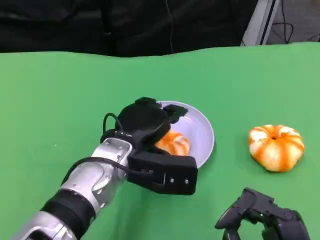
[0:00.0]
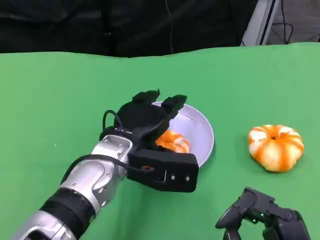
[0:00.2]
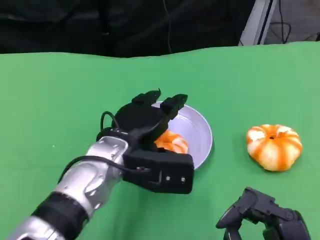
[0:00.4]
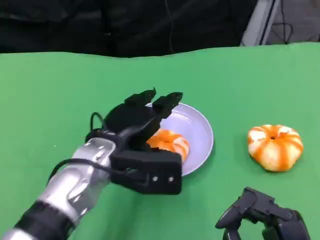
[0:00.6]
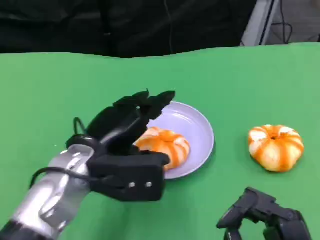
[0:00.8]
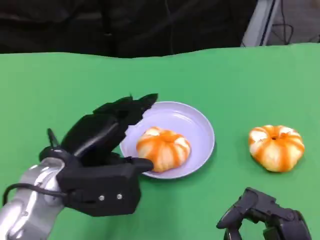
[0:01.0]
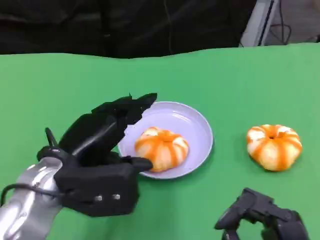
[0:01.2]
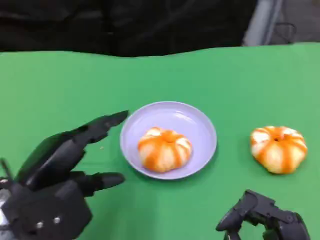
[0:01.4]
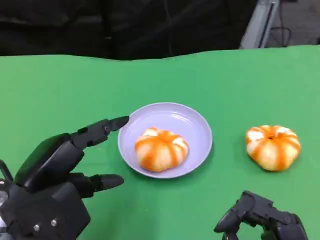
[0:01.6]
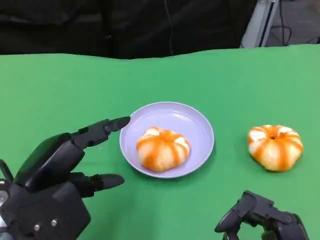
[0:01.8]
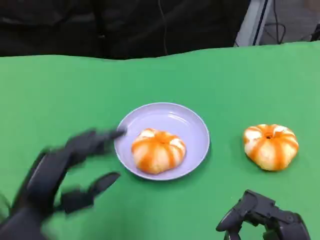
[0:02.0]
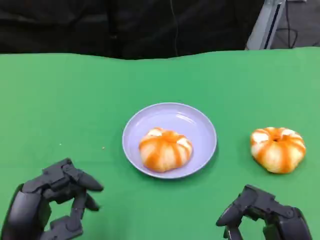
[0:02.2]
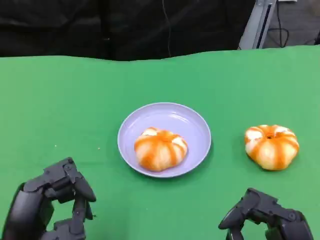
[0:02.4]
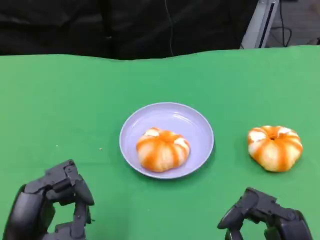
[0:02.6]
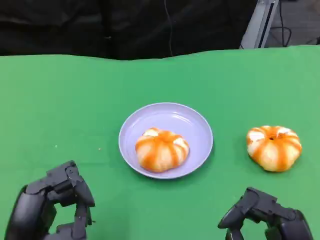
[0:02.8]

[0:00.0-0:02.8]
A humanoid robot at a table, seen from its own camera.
Task of the whole recording: Grasp the bread from the table and place it into the plate.
0:00.0 to 0:01.4: The left hand moves to the left and backward, approximately 15 cm.
0:01.4 to 0:02.8: The left hand heads backward and downward, covering some 10 cm.

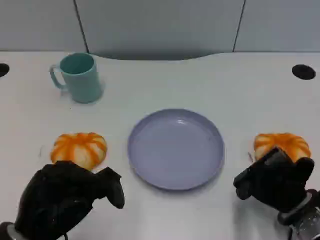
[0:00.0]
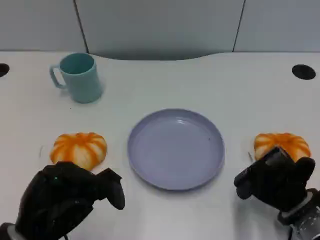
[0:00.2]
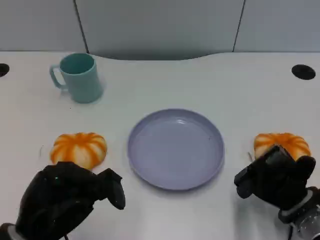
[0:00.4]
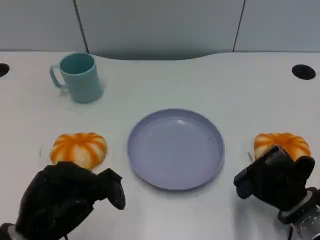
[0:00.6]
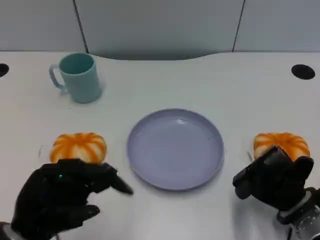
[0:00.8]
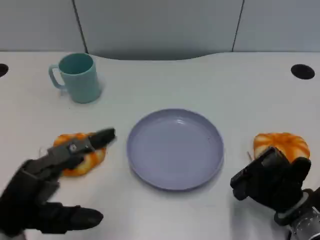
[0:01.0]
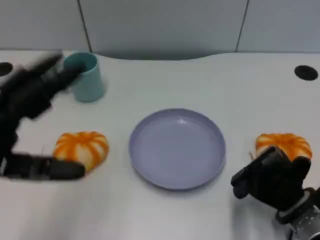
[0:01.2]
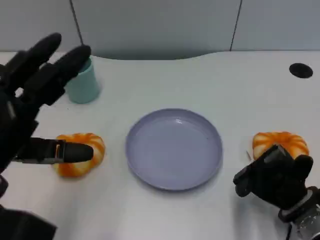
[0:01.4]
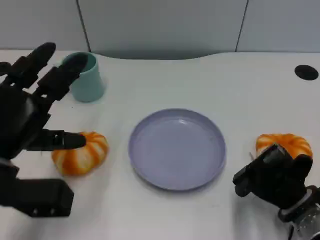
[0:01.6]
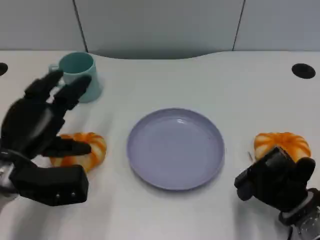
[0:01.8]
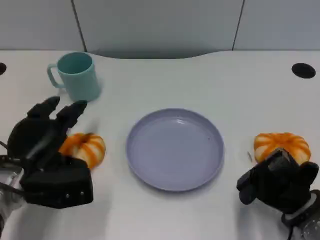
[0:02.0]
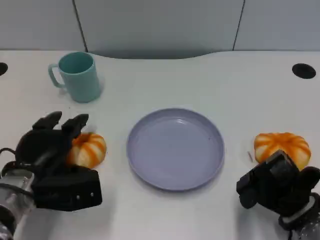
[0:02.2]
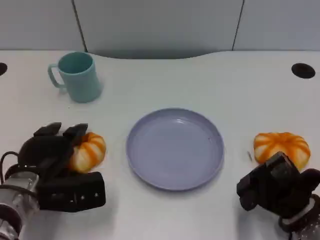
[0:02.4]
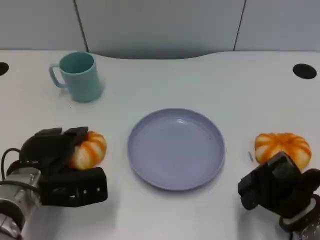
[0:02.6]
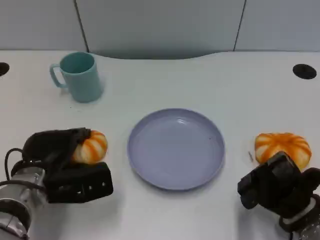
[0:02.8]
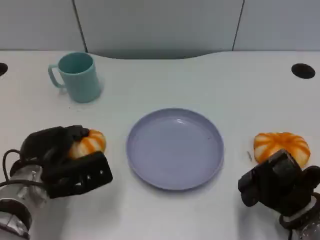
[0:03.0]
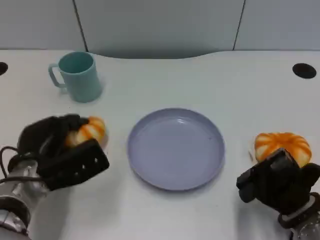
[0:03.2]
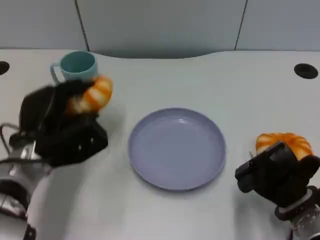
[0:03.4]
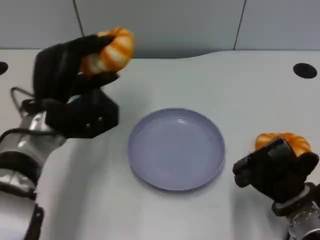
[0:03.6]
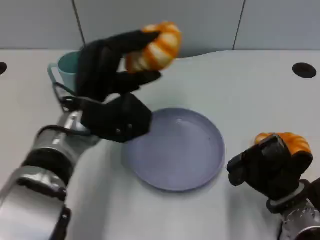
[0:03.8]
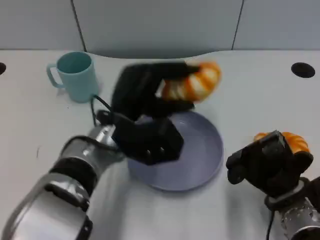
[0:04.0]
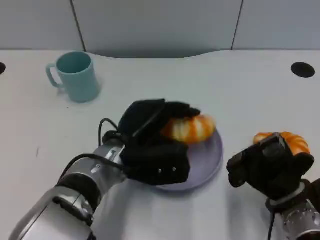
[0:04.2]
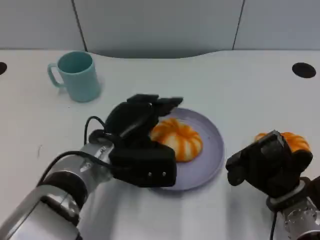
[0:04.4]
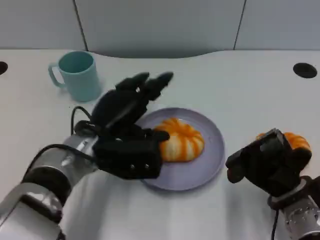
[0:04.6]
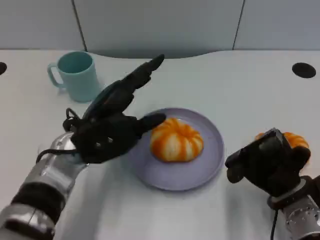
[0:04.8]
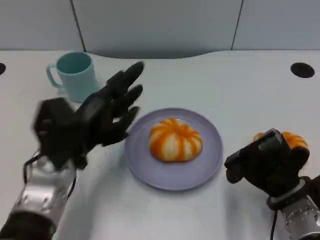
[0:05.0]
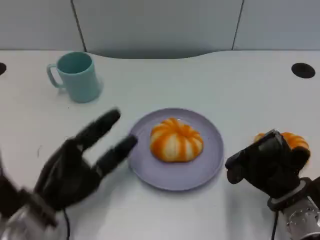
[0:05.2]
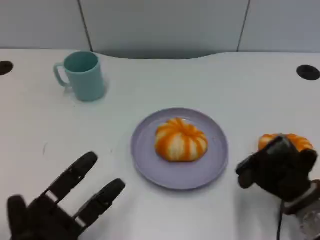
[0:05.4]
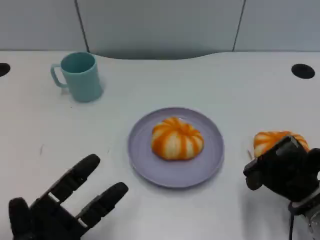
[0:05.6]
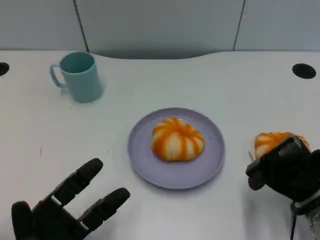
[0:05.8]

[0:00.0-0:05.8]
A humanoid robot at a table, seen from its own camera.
Task of the whole recording: Grasp the bread from the table and place it into the plate.
0:00.0 to 0:01.4: The left hand moves upward, approximately 10 cm.
0:01.4 to 0:02.8: The left hand shifts about 15 cm downward and forward.
0:02.8 to 0:04.4: The left hand is displaced to the right by approximately 10 cm.
0:04.4 to 0:05.8: The left hand travels to the left, backward and downward by roughly 20 cm.
